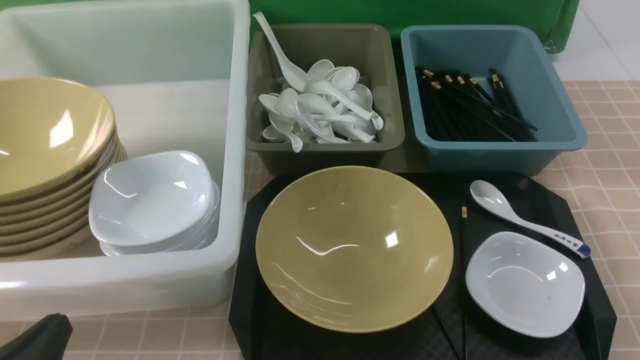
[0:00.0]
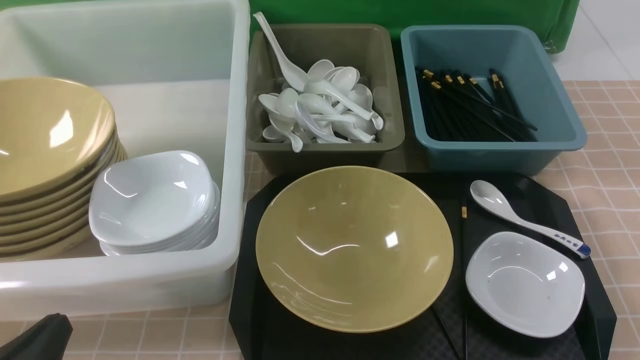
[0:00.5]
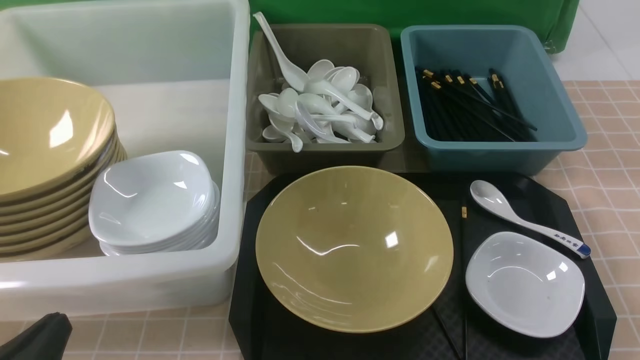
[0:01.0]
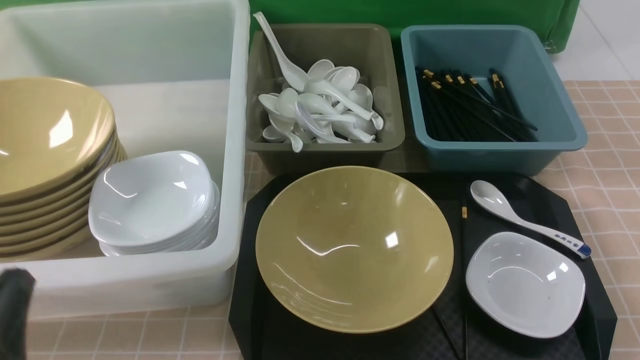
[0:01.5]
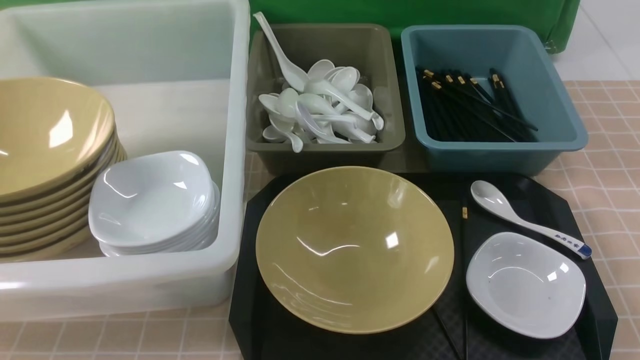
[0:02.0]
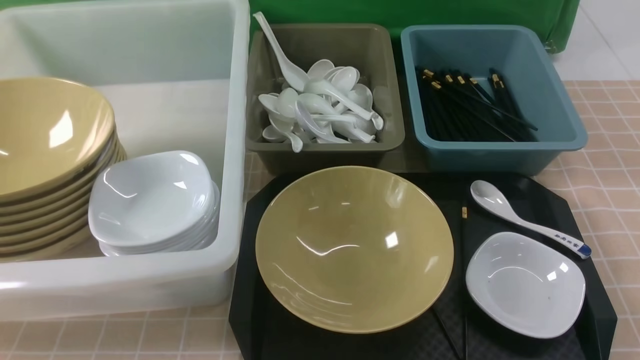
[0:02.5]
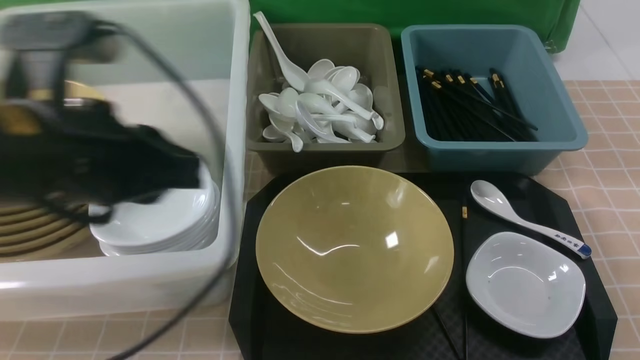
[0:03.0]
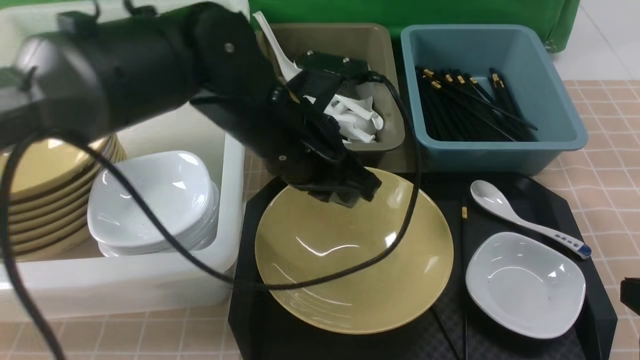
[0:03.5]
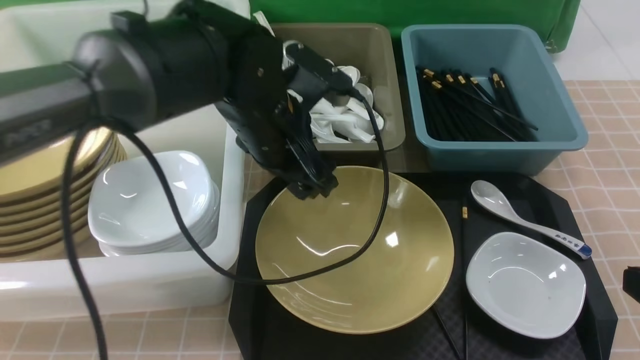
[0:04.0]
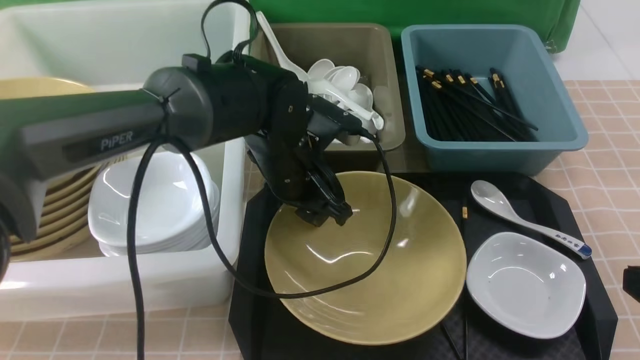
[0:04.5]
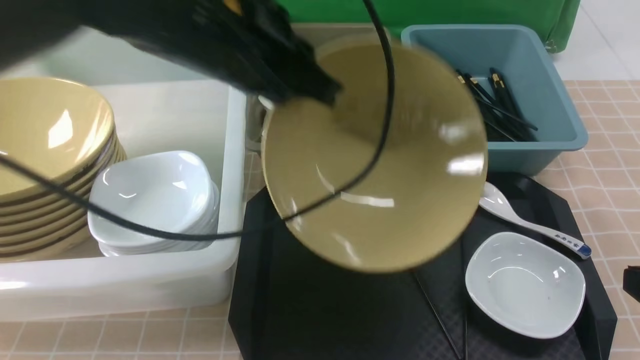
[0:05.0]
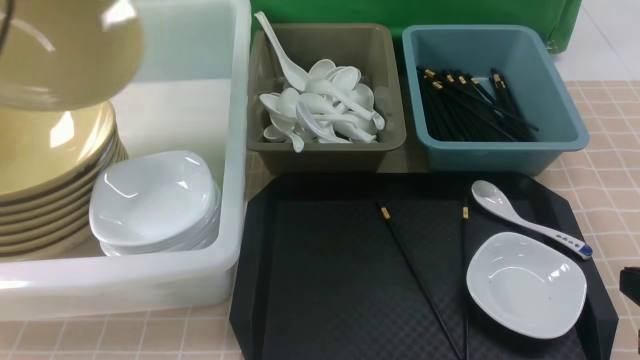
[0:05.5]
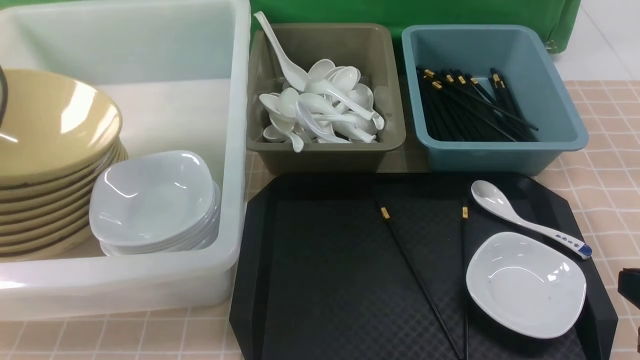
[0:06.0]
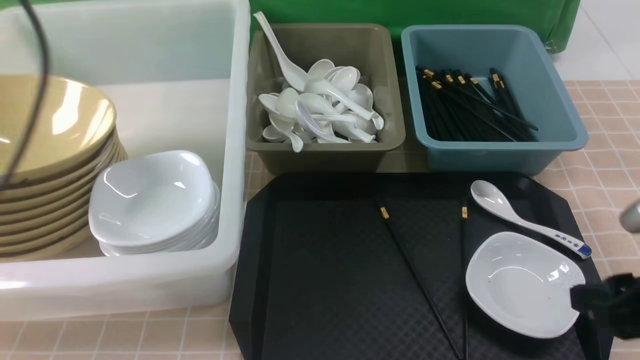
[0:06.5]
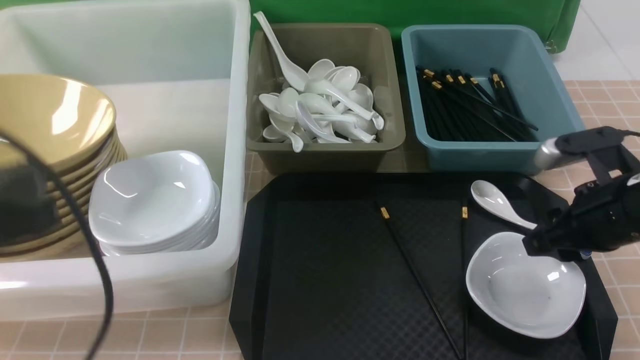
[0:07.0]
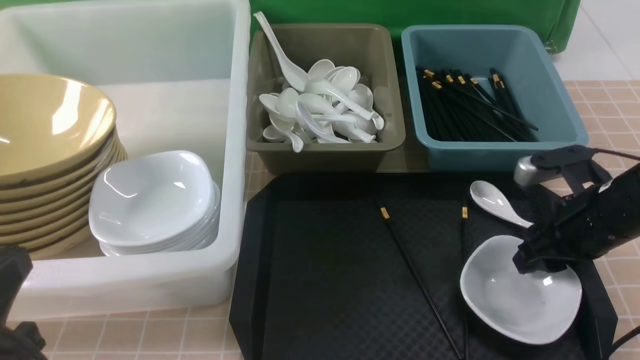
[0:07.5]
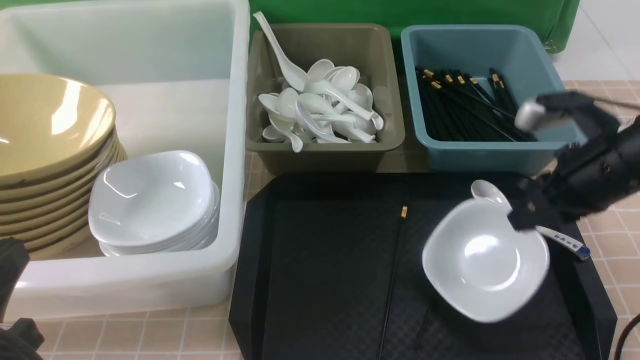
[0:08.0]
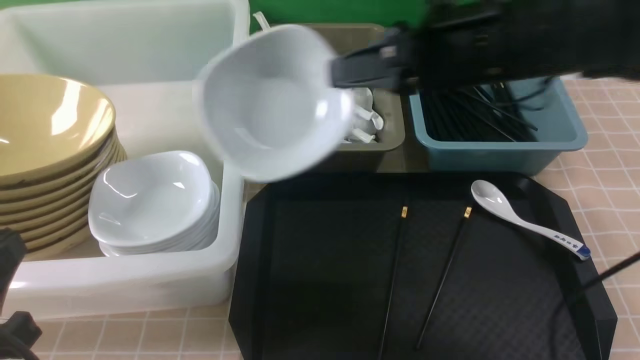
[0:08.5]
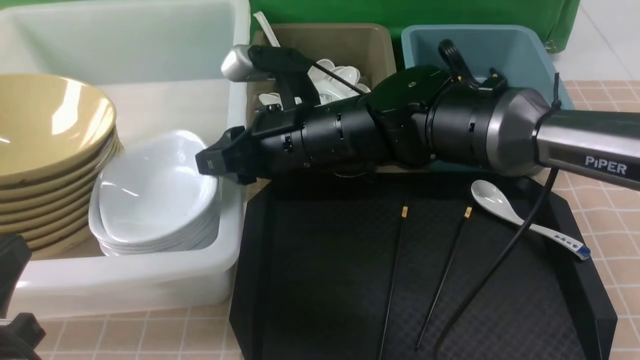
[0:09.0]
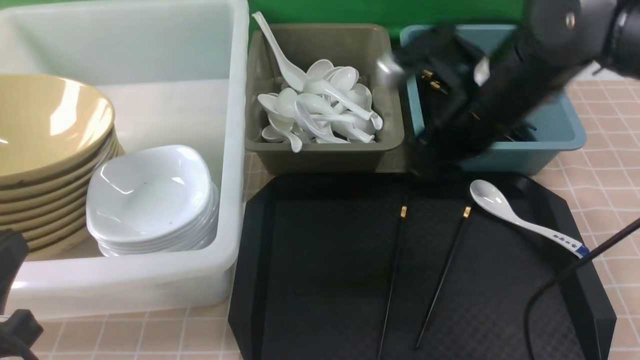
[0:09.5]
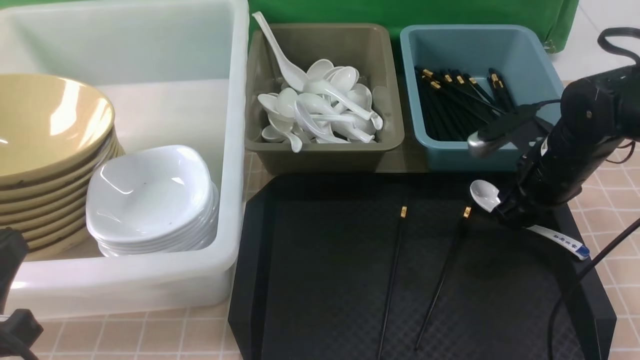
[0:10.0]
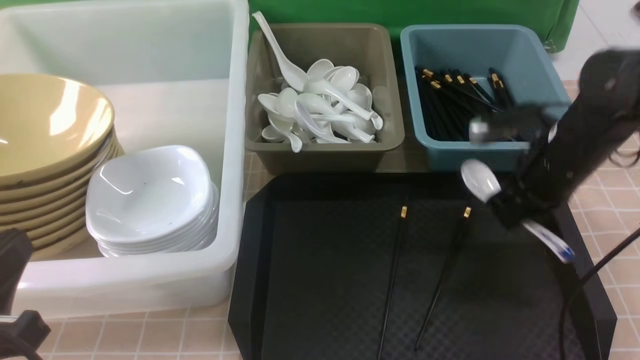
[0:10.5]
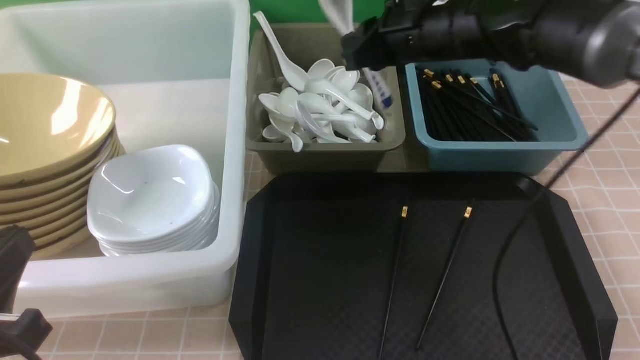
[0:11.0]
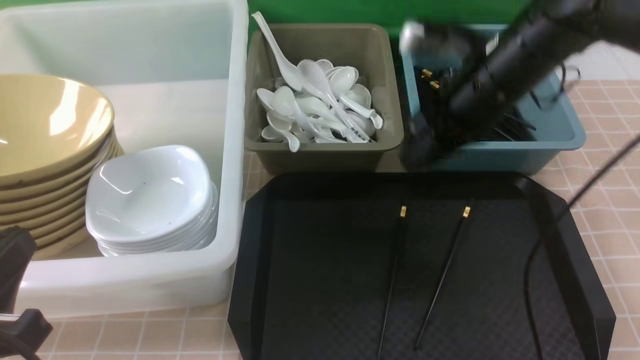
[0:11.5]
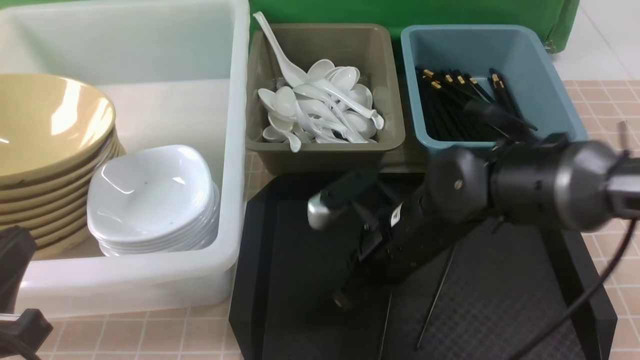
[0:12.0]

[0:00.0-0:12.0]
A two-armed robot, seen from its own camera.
Task of the whole recording: on brown table put chopsticks spoon bowls plates into blue grey white boxes.
Step, 0:00.0 to 0:05.0: use the left arm to grab the yellow noodle bowl on the left.
Step, 0:05.5 to 0:06.5: use the left arm to put the noodle bowl into the large storage box on the left.
Step, 0:07.0 to 0:08.0: use the right arm to grab the plate.
Step, 0:08.5 to 0:09.0: use the right arm to put the plate into the large storage box on the left.
Step, 0:10.0 to 0:10.5: use the right arm to grab the soup spoon in the middle.
Step, 0:11.0 to 0:11.5: use the right arm to put the soup spoon into the small storage box in the middle.
0:02.0 to 0:04.0: The left gripper travels forward and to the right by some 35 cm, and opens its fingers. Meanwhile the right gripper moves forward, roughly 5 cm, reaches some 5 cm upward, then returns, and closes its fingers.
0:04.0 to 0:06.0: The left gripper goes approximately 30 cm to the left, and closes, then opens again.
0:06.0 to 0:08.0: The left gripper travels backward, to the right and downward by some 25 cm, and closes up. Meanwhile the right gripper heads forward, covering roughly 20 cm, and opens and closes again.
0:08.0 to 0:10.0: The right gripper is displaced forward by some 5 cm, reaches some 25 cm to the left, then returns, and opens.
0:10.0 to 0:12.0: The right gripper heads to the left and backward, covering roughly 15 cm, and closes its fingers.

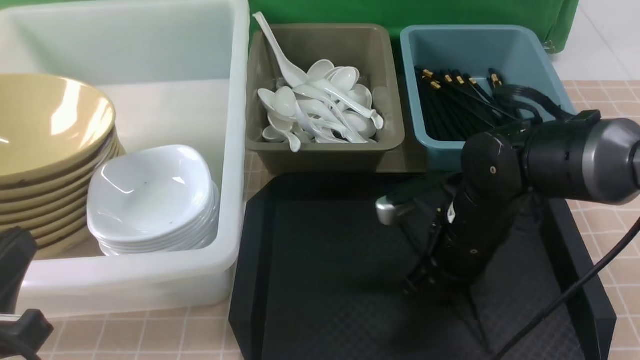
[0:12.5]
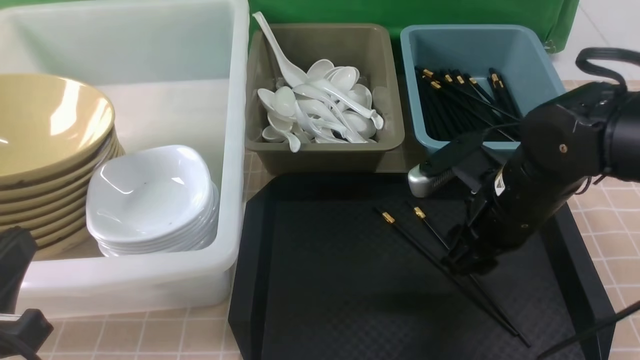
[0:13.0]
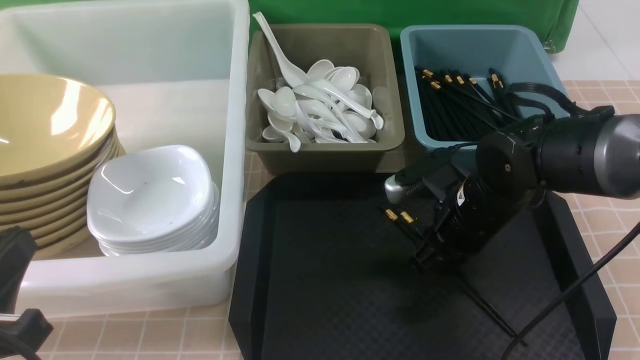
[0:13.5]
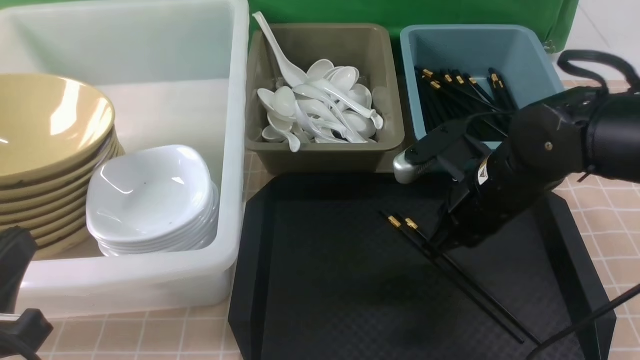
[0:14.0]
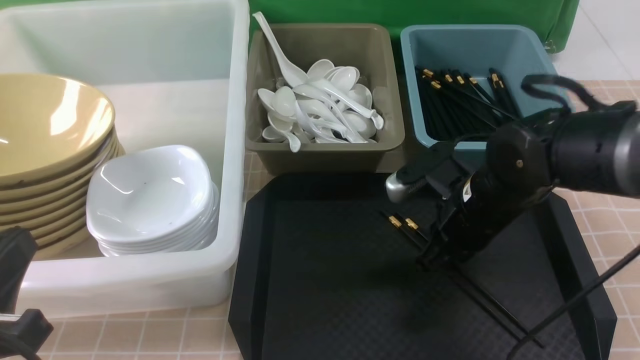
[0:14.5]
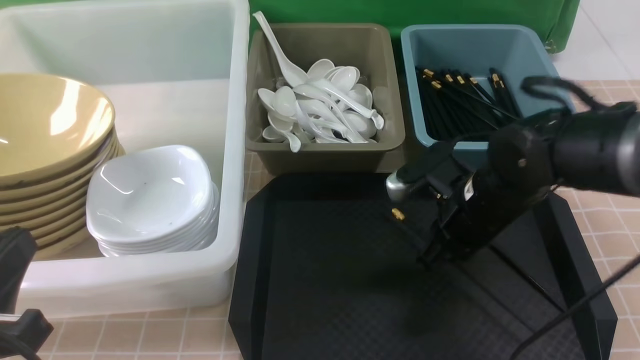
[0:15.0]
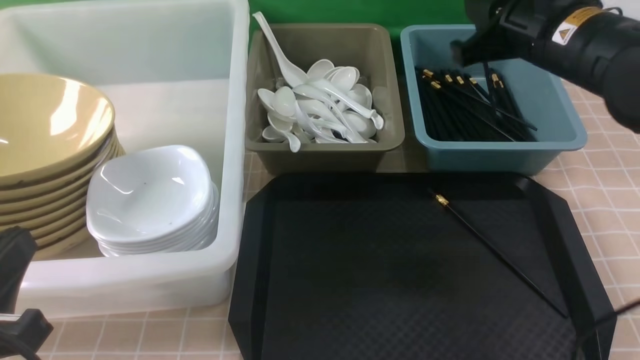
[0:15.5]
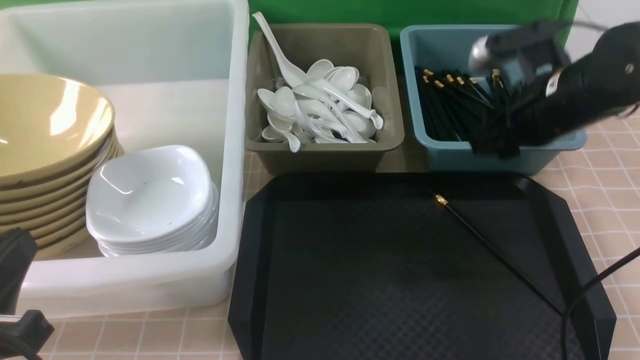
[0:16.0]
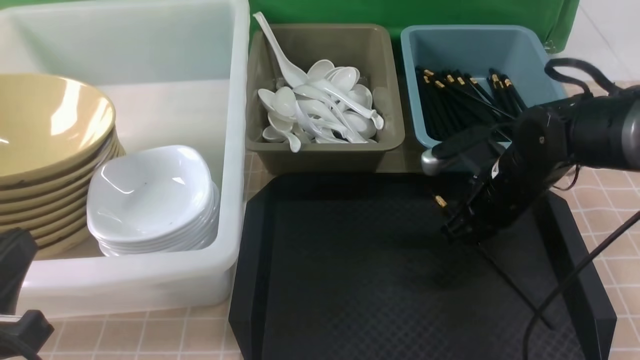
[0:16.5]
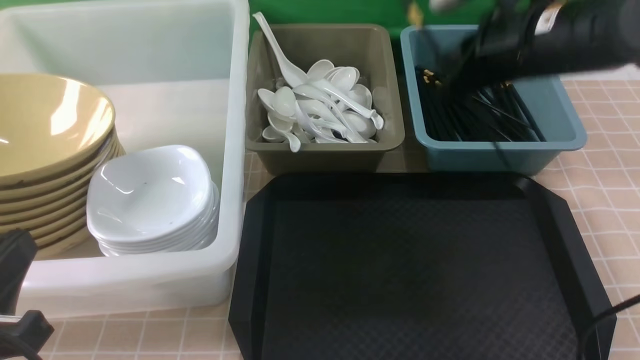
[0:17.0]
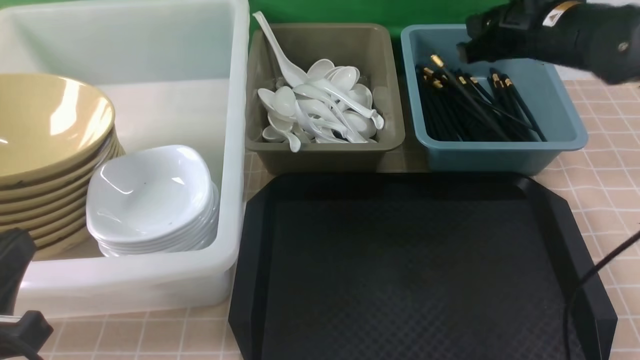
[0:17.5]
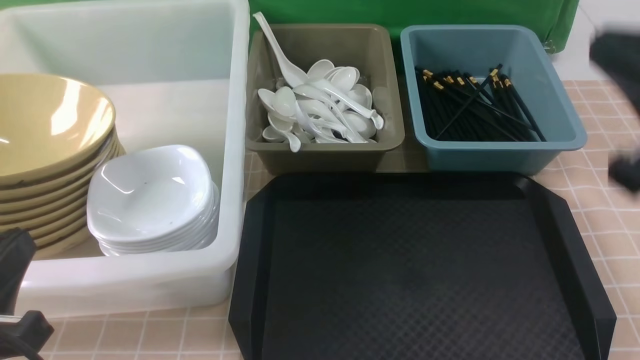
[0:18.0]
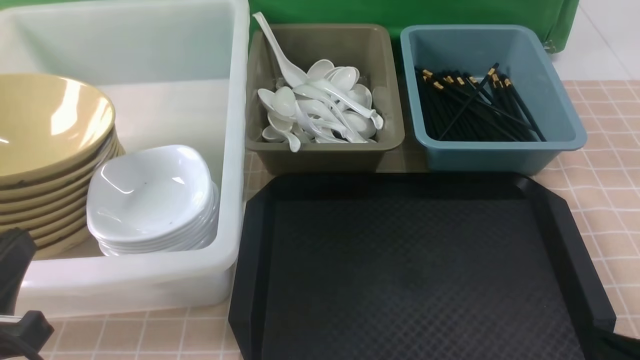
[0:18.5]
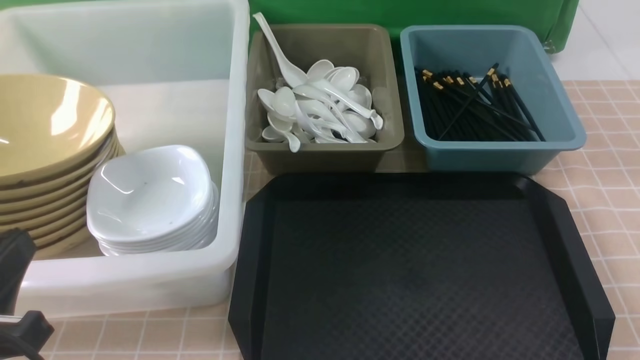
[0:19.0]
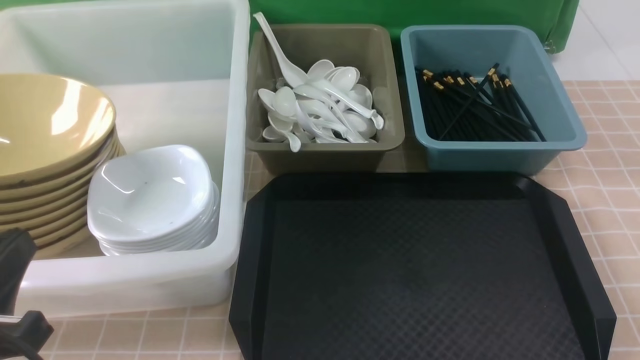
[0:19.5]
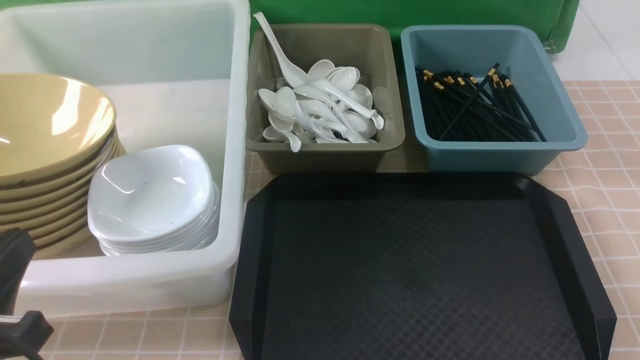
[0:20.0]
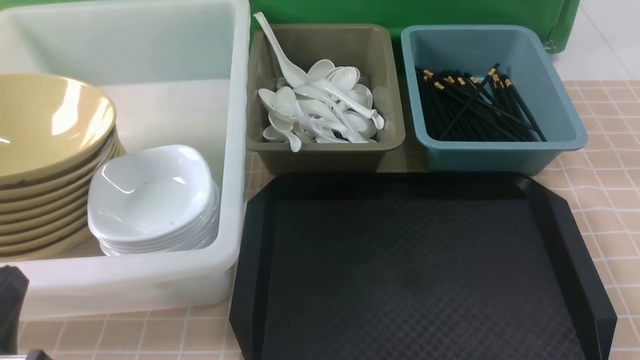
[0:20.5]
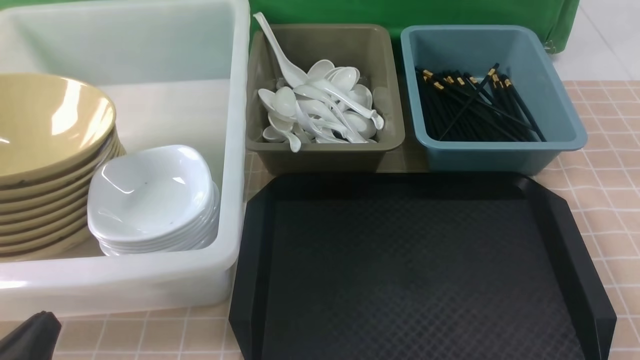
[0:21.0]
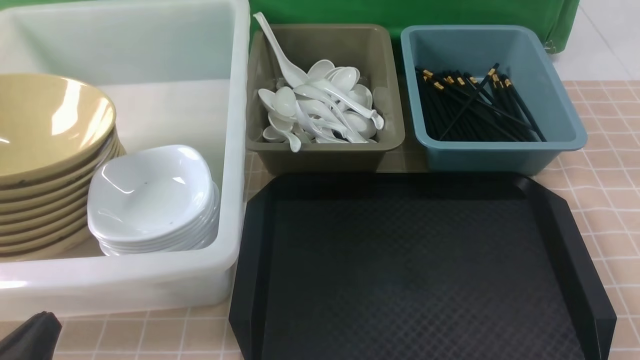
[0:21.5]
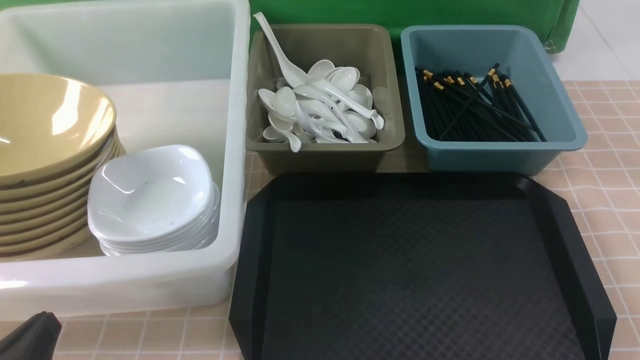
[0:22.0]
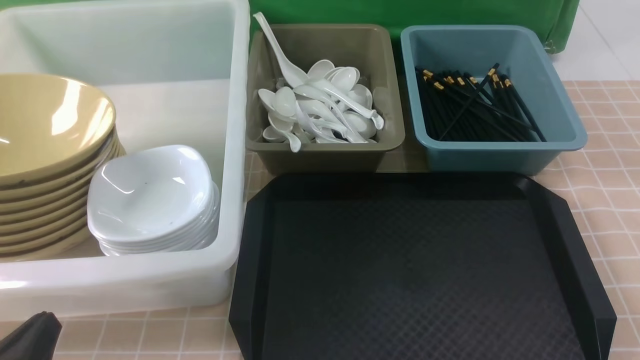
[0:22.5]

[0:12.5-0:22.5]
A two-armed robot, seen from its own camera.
Task of the whole recording: on brown table put chopsticks spoon bowls plates into blue grey white boxes.
Step, 0:12.5 to 0:15.0: use the right arm to grab a chopstick.
Step, 0:16.0 to 0:16.5: use the right arm to grab a chopstick.
Step, 0:17.0 to 0:17.5: use the right arm to put a chopstick into the small storage box on the right.
0:12.5 to 0:14.5: The right gripper opens and closes again.
0:14.5 to 0:16.5: The right gripper reaches about 15 cm upward, then returns, and opens and closes again.
0:16.5 to 0:18.5: The right gripper heads backward, covering about 25 cm, and closes.
0:20.5 to 0:22.5: The left gripper moves downward, roughly 5 cm.
